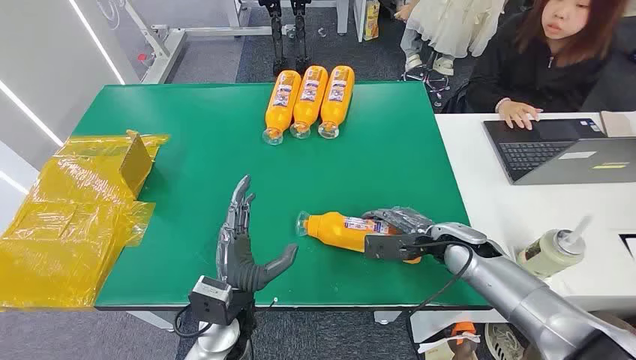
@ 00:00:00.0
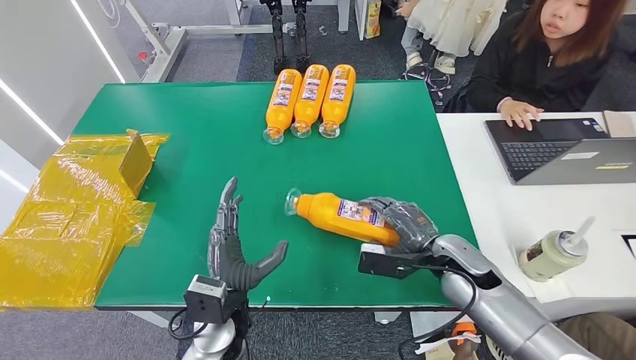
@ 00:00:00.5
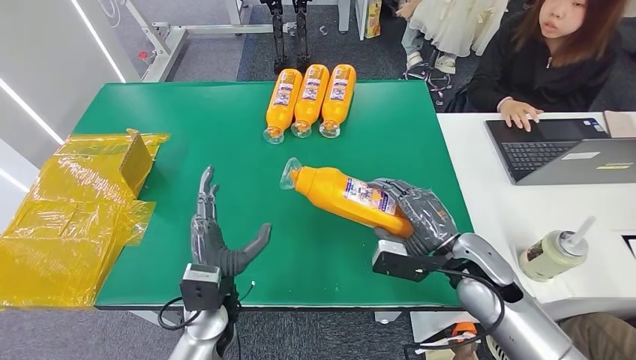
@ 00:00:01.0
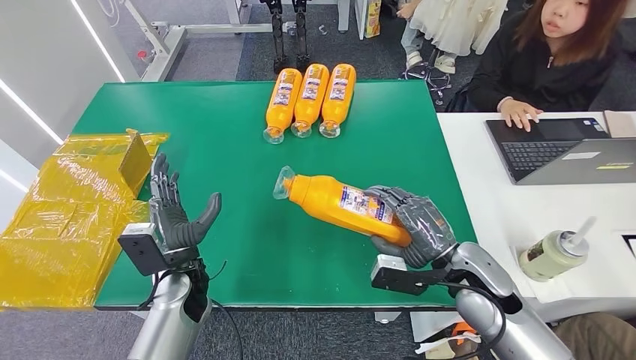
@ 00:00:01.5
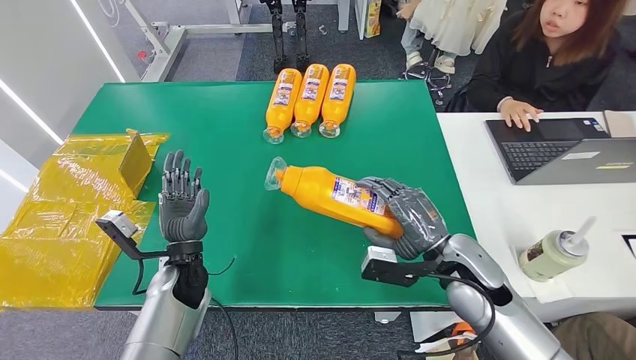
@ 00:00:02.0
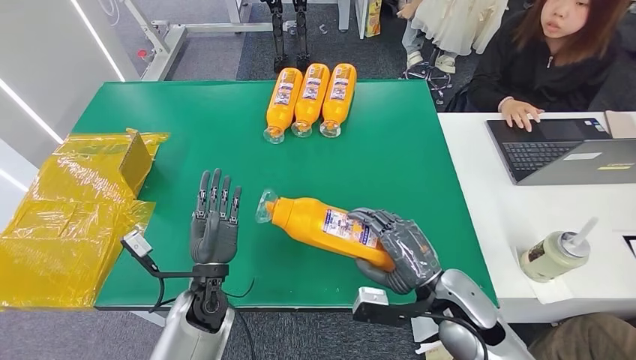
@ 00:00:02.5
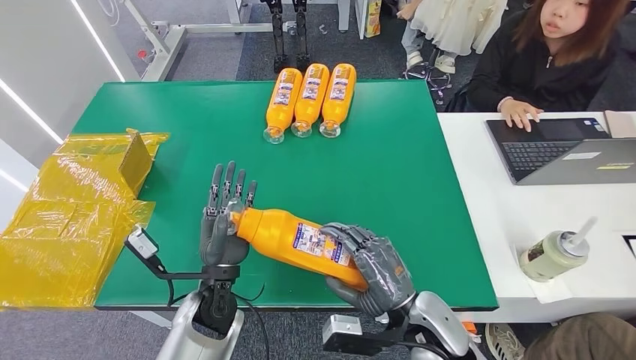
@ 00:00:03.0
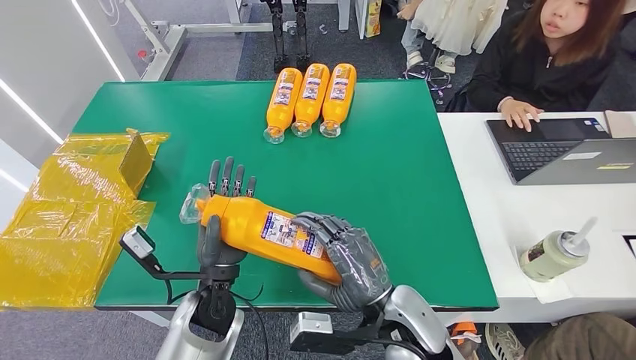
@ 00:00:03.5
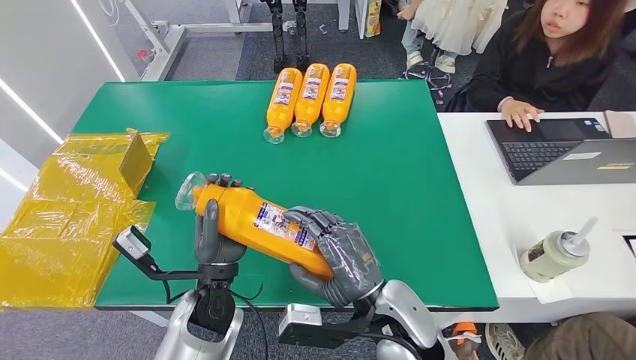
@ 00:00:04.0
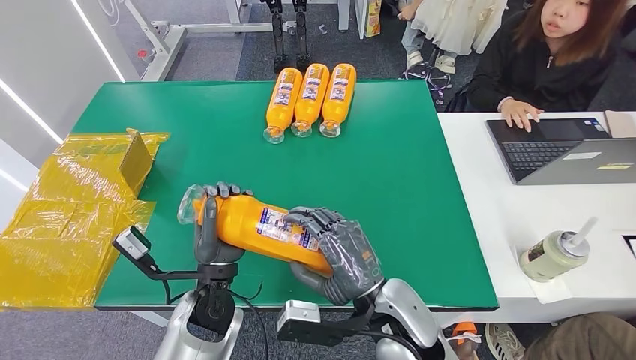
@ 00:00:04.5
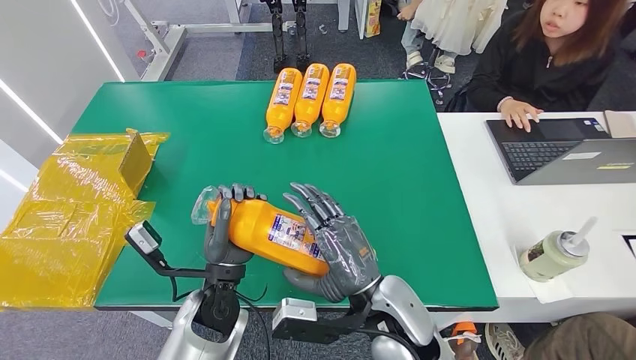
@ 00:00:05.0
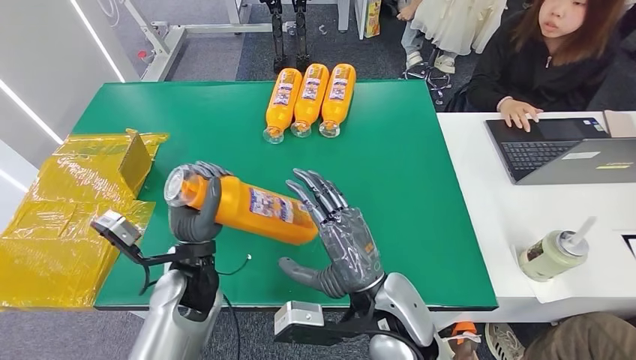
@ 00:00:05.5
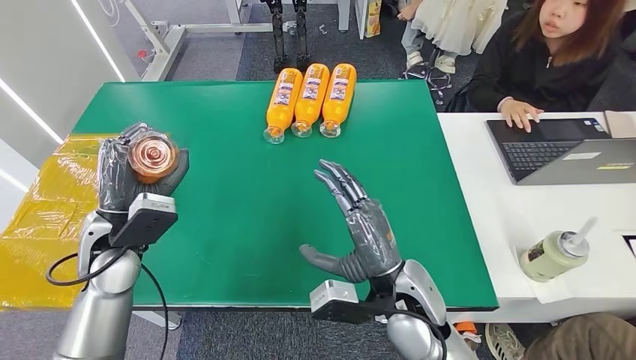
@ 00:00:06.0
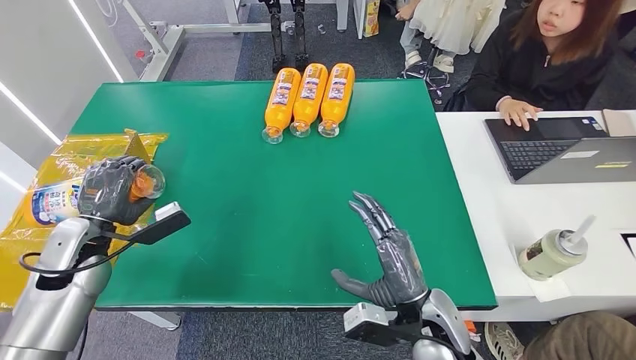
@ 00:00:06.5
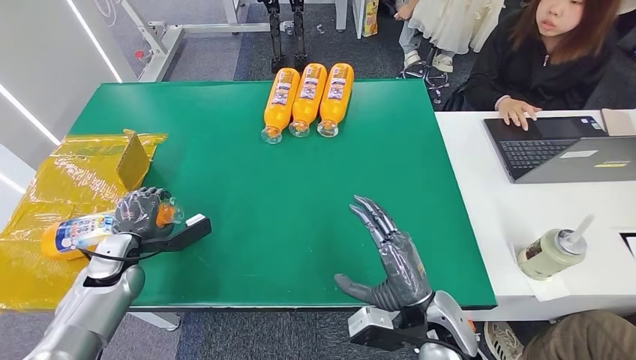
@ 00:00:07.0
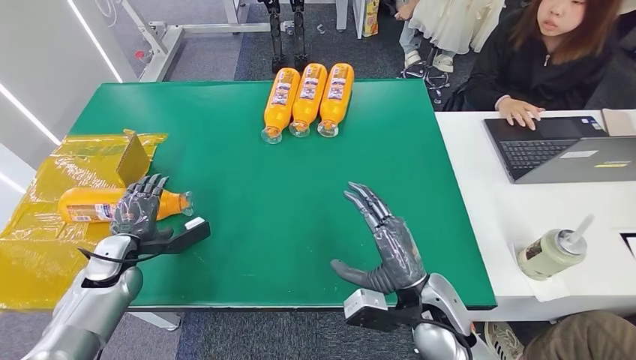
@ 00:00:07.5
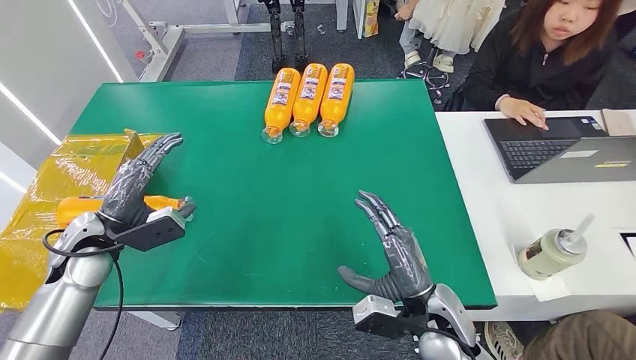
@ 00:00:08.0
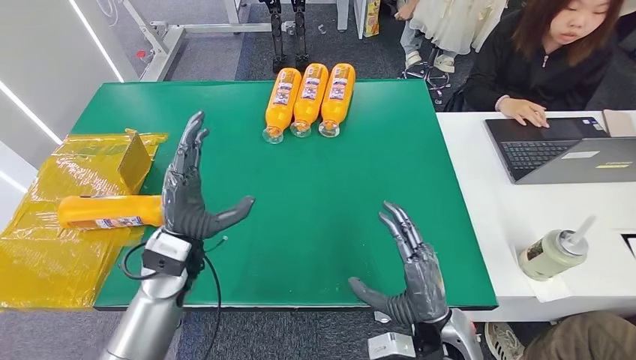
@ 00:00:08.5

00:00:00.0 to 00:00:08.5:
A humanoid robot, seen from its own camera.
Step, 00:00:00.0 to 00:00:03.0: Pick up the bottle from the table.
Step, 00:00:03.5 to 00:00:08.5: Turn the bottle to the front side.
00:00:06.5 to 00:00:08.5: The left hand shifts about 20 cm to the right.
